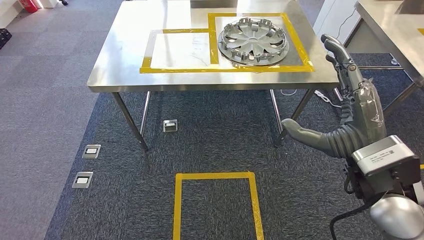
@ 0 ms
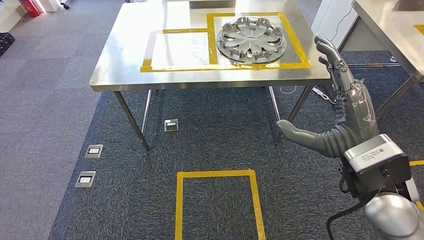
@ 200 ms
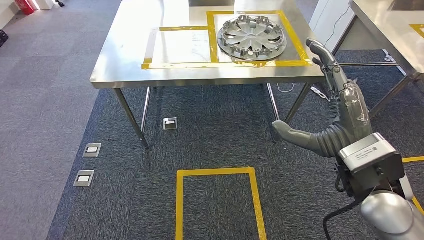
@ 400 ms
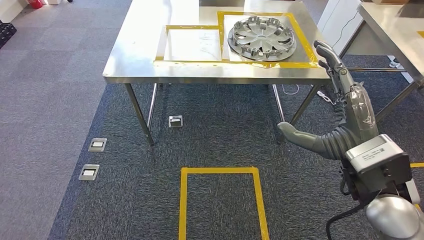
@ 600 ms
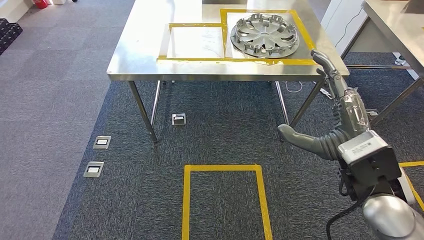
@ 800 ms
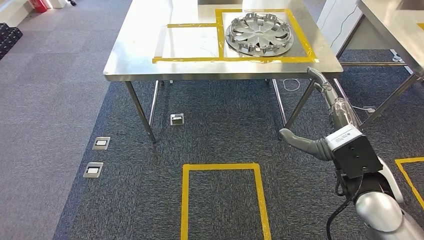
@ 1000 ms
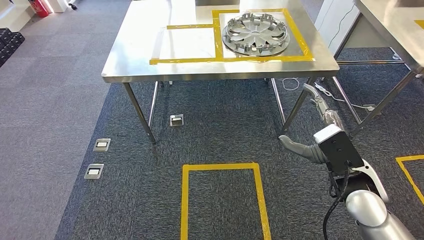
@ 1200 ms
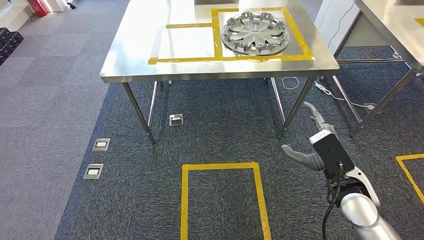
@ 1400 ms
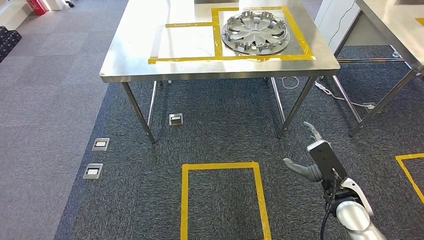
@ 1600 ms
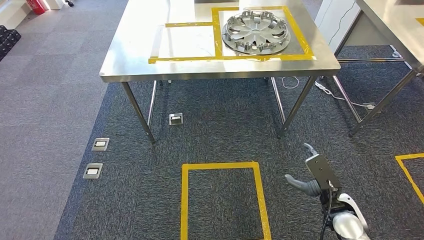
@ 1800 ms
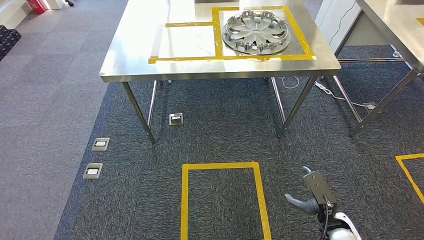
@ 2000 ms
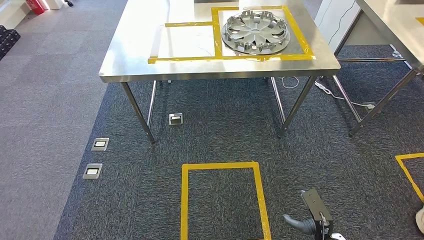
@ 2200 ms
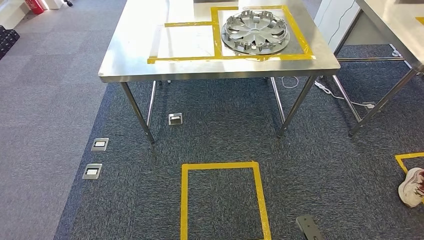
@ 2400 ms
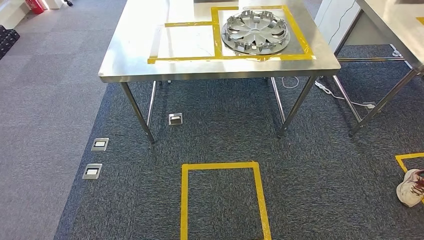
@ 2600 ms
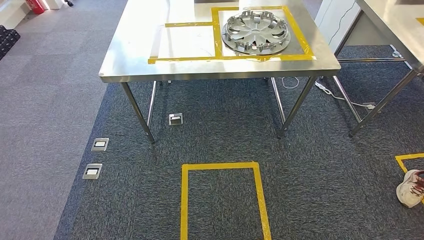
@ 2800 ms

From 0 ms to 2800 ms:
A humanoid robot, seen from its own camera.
Step, from 0 ms to 2800 ms: Return to the initial position at the shelf.
From 1400 ms to 2800 ms: The right hand goes some 40 cm backward and downward. Meanwhile the left hand travels backward by some 5 cm.
